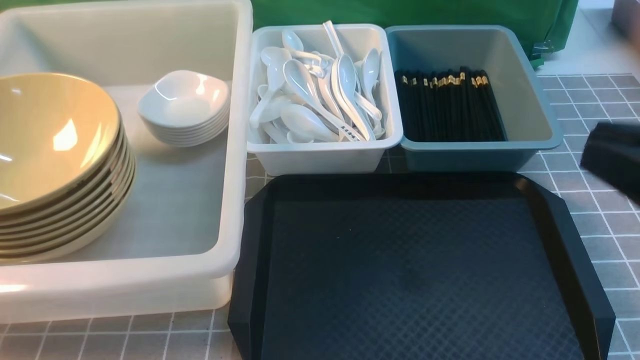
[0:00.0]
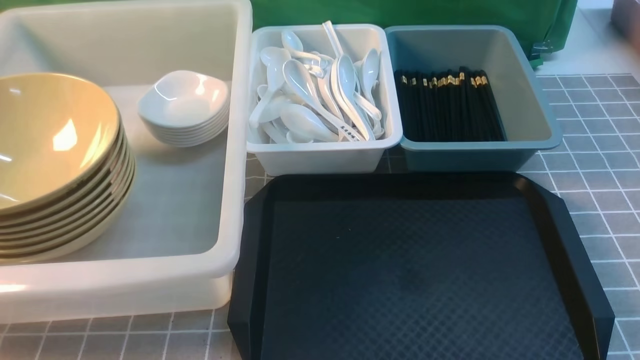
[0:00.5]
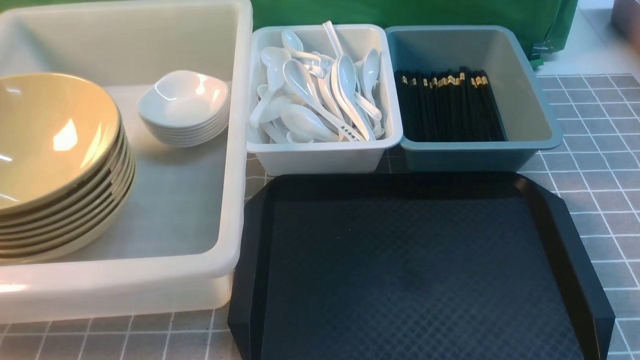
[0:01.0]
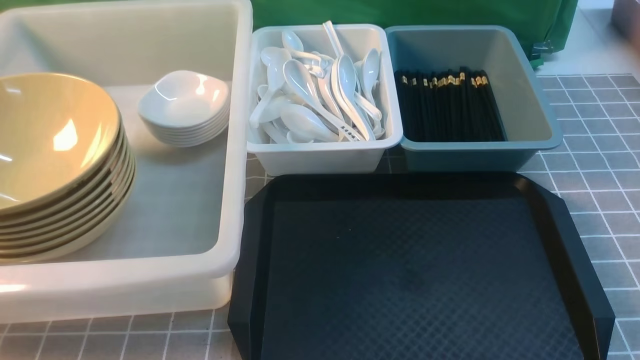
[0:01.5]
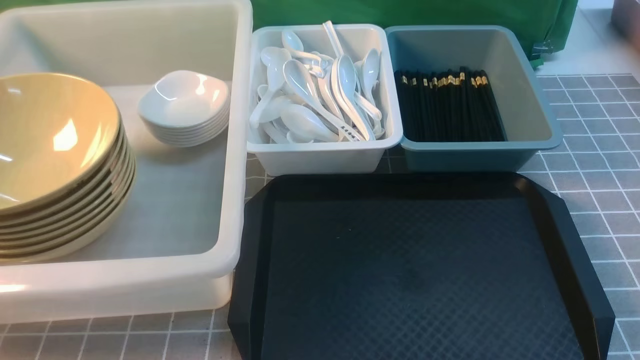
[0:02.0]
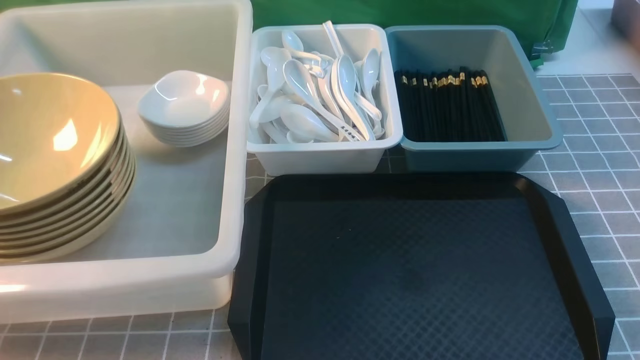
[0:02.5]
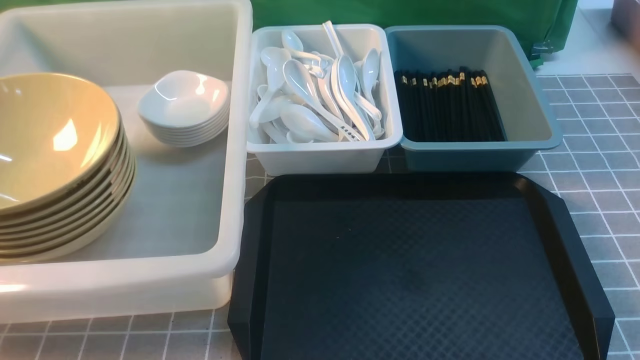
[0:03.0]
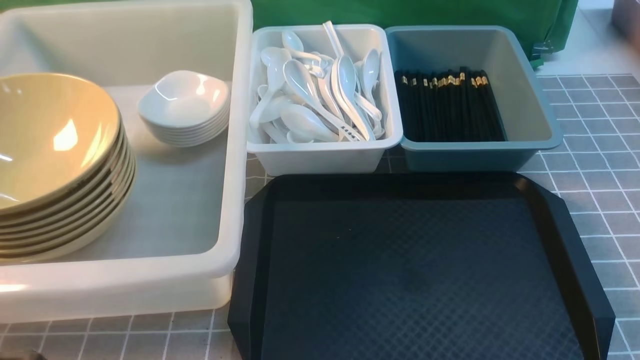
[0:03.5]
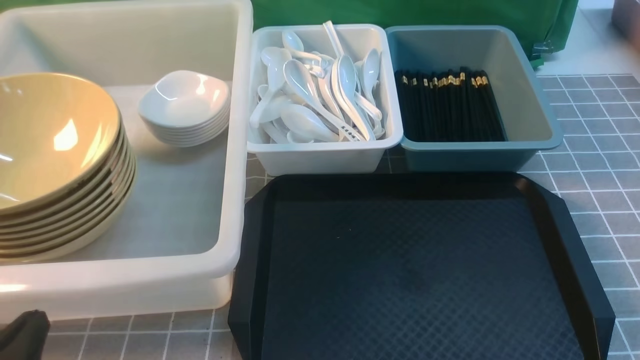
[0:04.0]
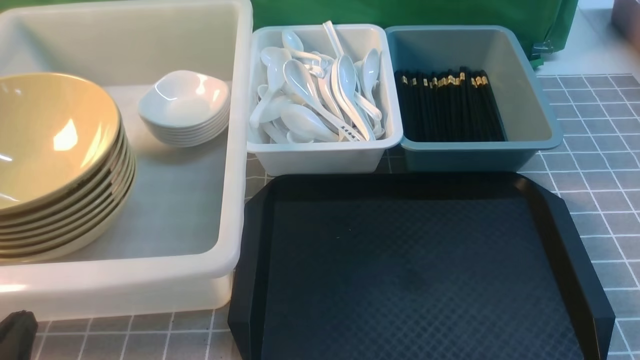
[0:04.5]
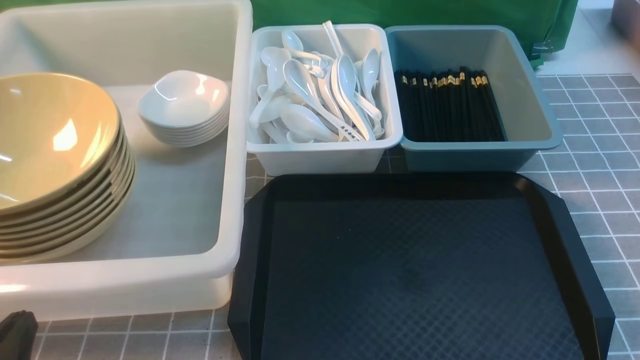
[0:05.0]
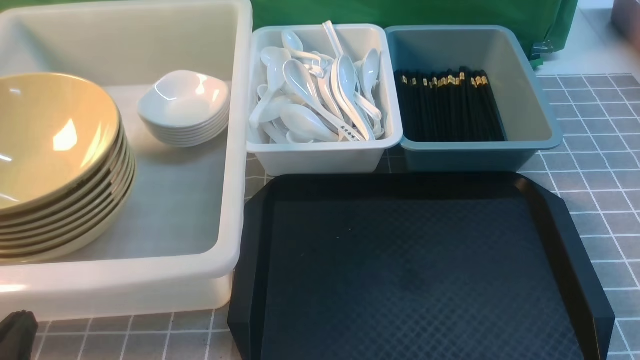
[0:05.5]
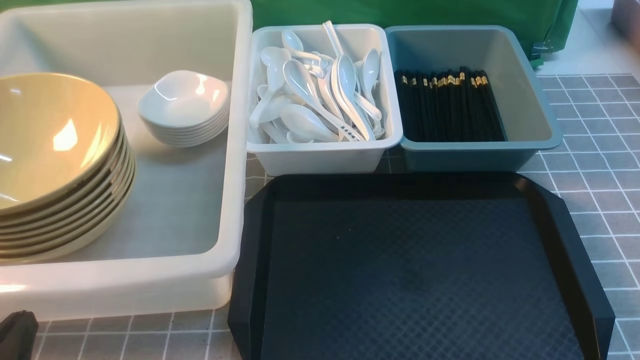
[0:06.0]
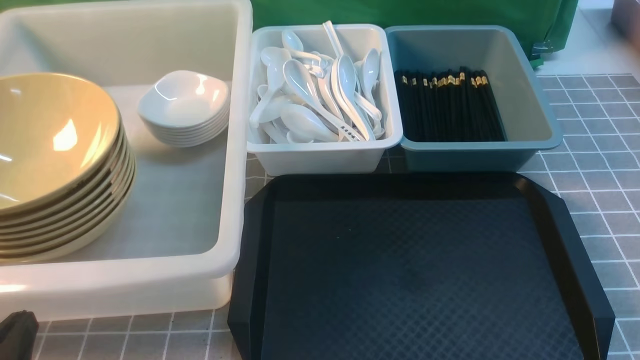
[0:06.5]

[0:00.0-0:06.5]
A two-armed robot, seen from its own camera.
Task of the whole recording: on grey table put chopsticks spoon bowls plates into blue grey white boxes.
0:00.0 to 0:02.0: The right gripper travels downward and to the right by about 25 cm.
0:02.0 to 0:04.5: The left gripper shifts approximately 10 cm downward.
0:04.5 to 0:06.5: Both grippers stay about where they are.

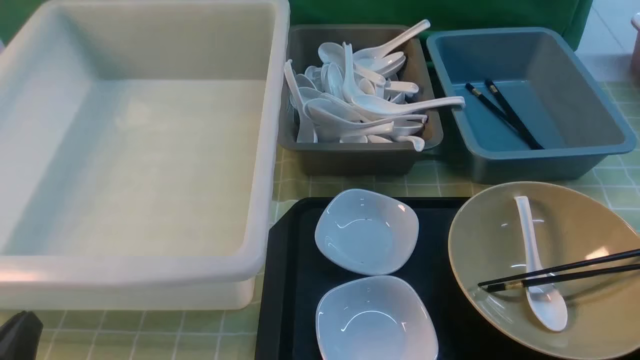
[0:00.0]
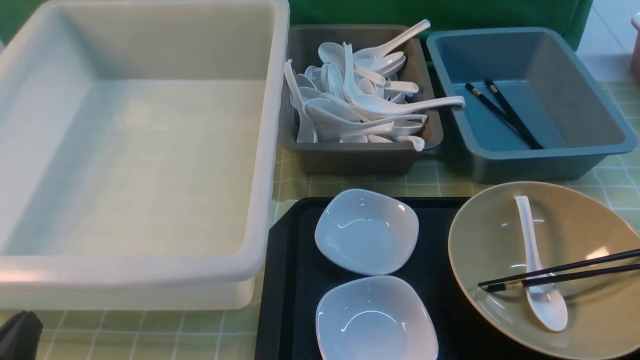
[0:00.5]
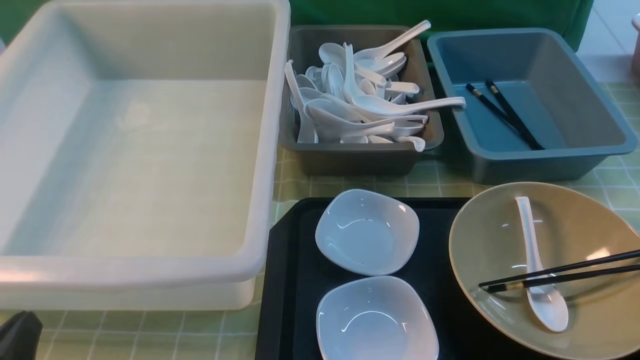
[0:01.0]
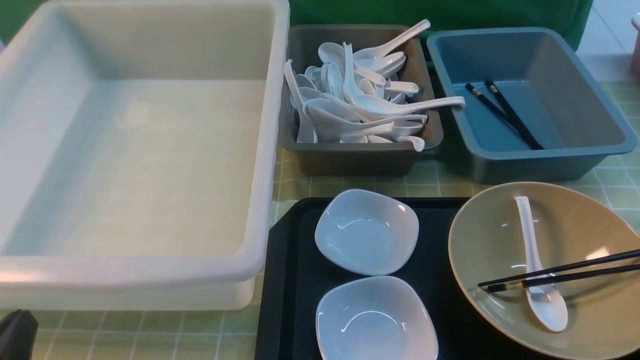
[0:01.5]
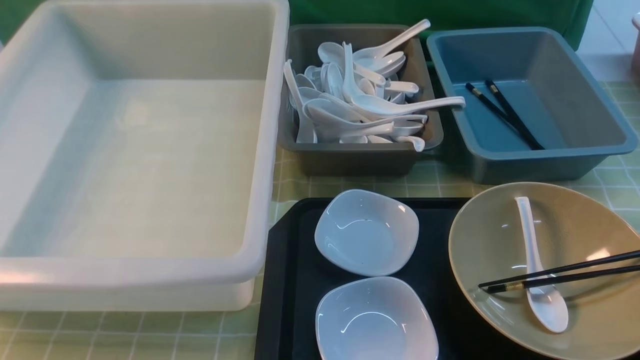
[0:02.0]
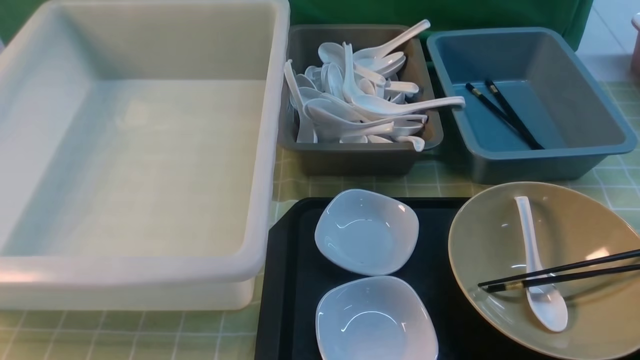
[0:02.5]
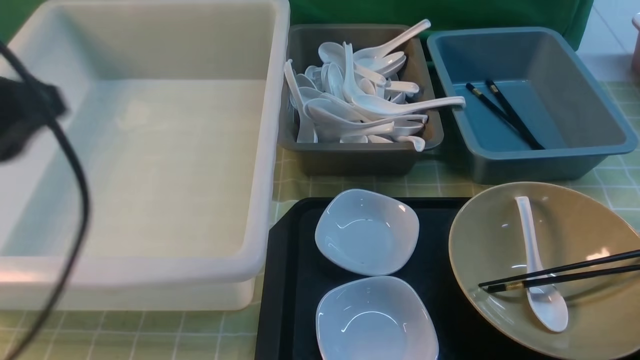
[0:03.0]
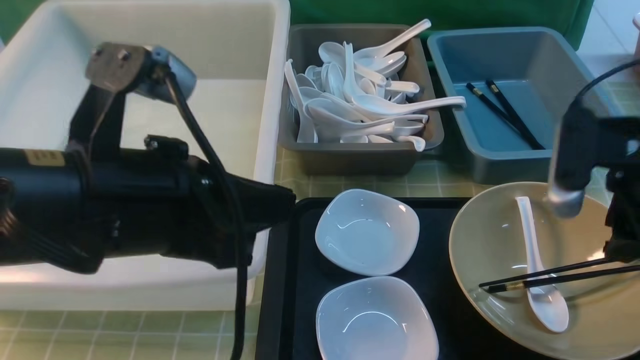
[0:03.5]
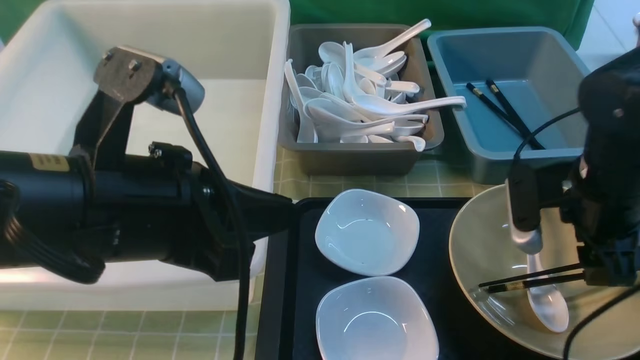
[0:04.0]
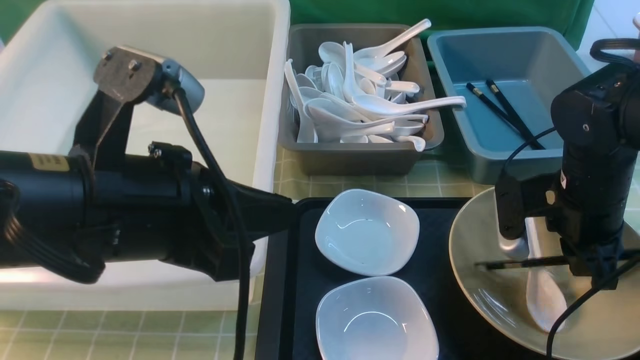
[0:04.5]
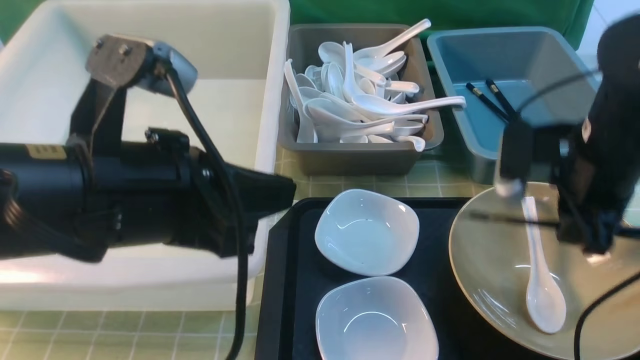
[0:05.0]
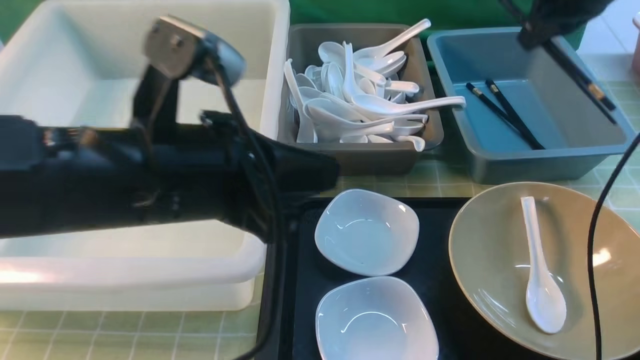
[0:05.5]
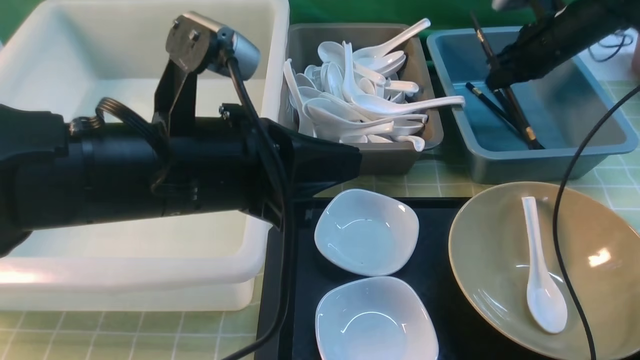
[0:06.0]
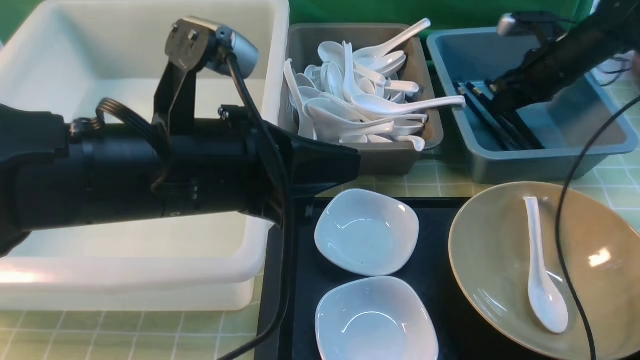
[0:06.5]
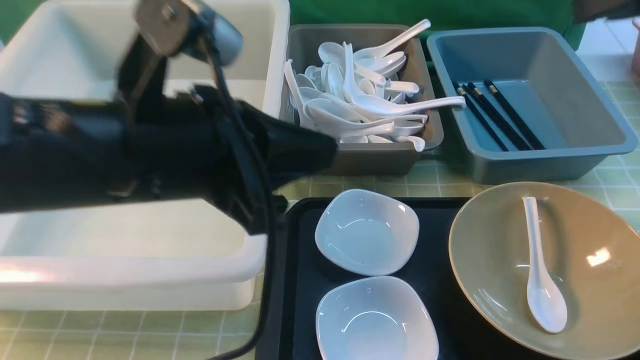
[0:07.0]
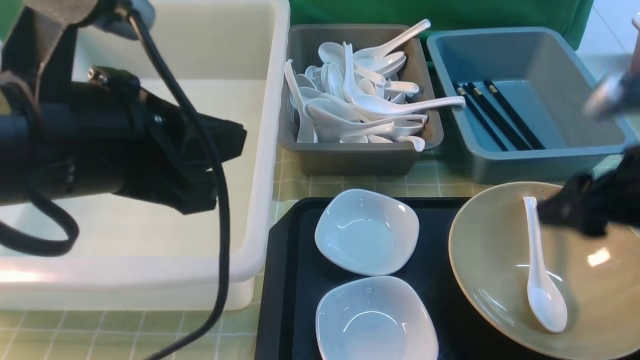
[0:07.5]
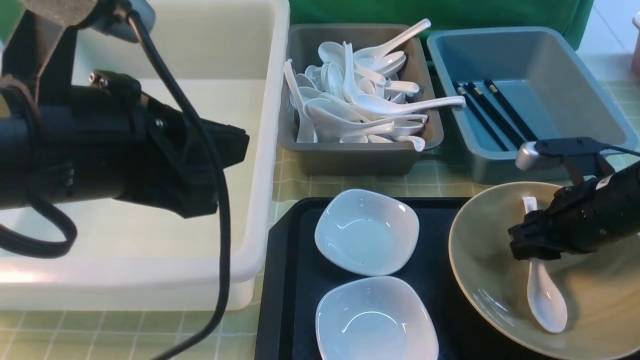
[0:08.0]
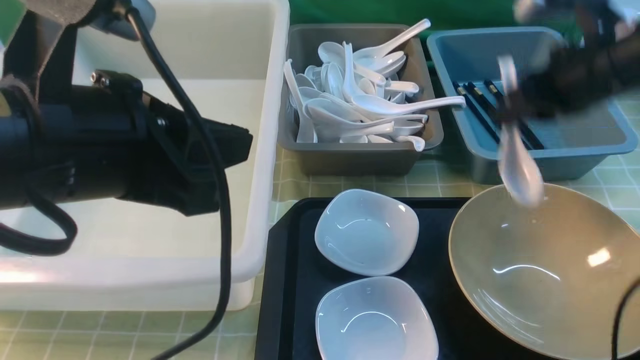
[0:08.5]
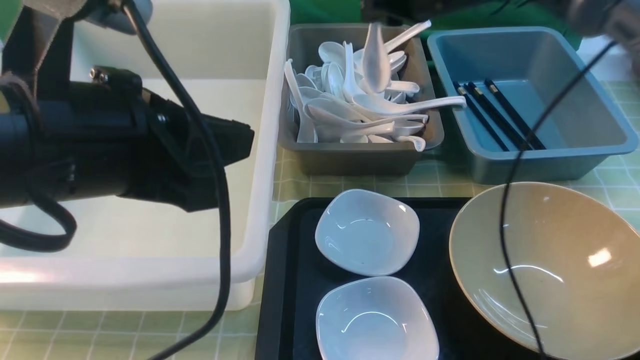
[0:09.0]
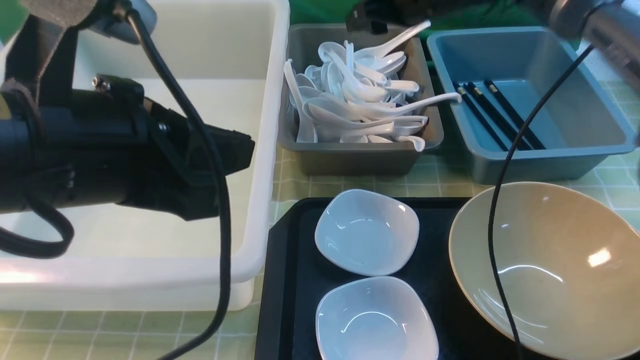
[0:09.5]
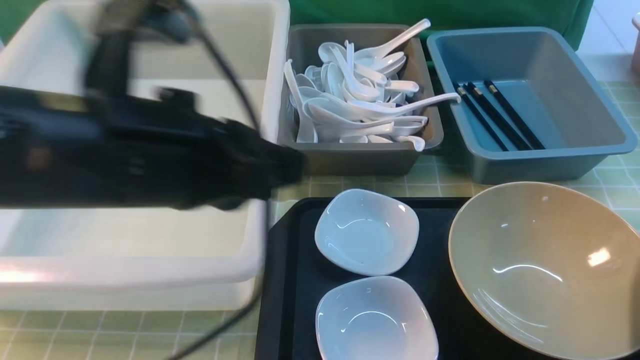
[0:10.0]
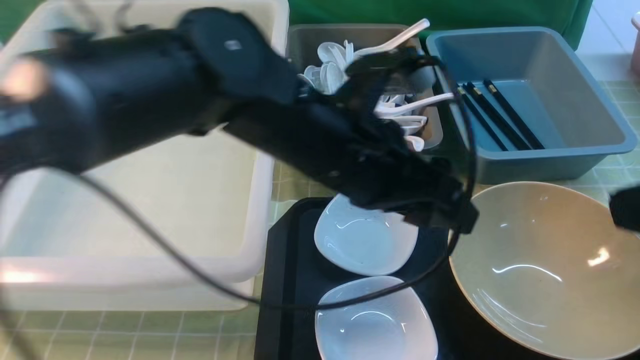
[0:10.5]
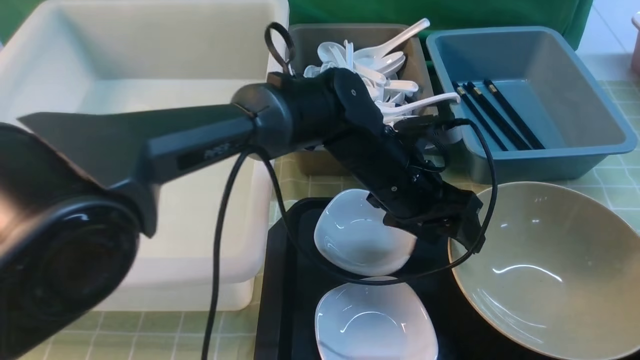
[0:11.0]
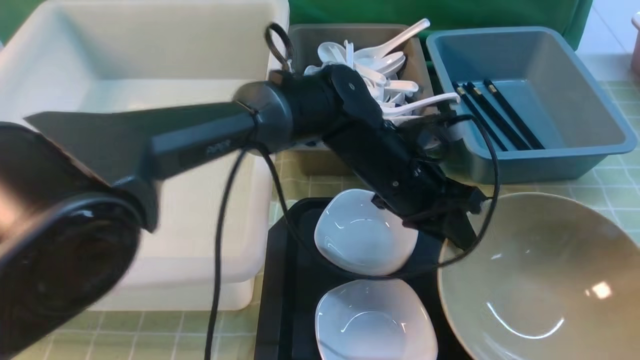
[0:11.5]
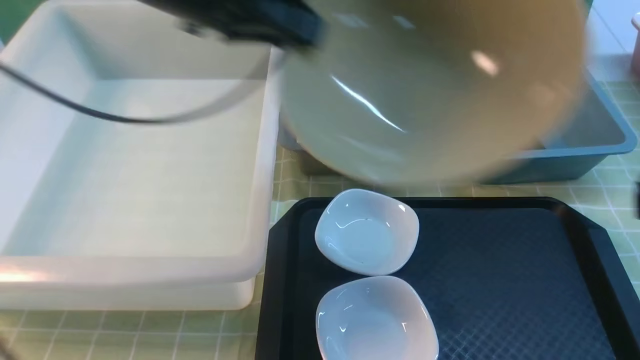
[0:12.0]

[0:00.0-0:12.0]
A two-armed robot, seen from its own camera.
Task of the whole recording: on green table put chopsticks spoon bowls plates into blue grey white boxes.
Step, 0:00.0 to 0:04.5: use the right arm to grab the chopsticks.
Step, 0:05.0 to 0:06.5: use the right arm to put the chopsticks into the small storage box on the right.
Step, 0:07.0 to 0:08.5: use the right arm to grab the soup spoon in the middle.
Step, 0:09.0 to 0:09.5: use the right arm to put the soup spoon into the small storage box in the middle.
Step, 0:10.0 to 0:11.5: use the left arm to grab the yellow noodle bowl on the left.
0:00.0 to 0:02.0: The two grippers go some 5 cm upward.
0:02.0 to 0:04.0: The left gripper shifts approximately 20 cm to the right, forward and upward; the right gripper is displaced forward by approximately 25 cm, and opens.
0:04.0 to 0:06.0: The left gripper shifts by roughly 5 cm; the right gripper is displaced forward by approximately 25 cm, and closes.
0:06.0 to 0:08.0: The right gripper heads backward, covering roughly 25 cm, and opens its fingers. The left gripper is displaced upward by roughly 5 cm.
0:08.0 to 0:10.0: The right gripper shifts roughly 30 cm upward, and closes.
0:10.0 to 0:12.0: The left gripper heads forward, covering roughly 15 cm, reaches approximately 15 cm to the right, then returns, and opens, then closes once more, while the right gripper goes about 20 cm backward and downward.

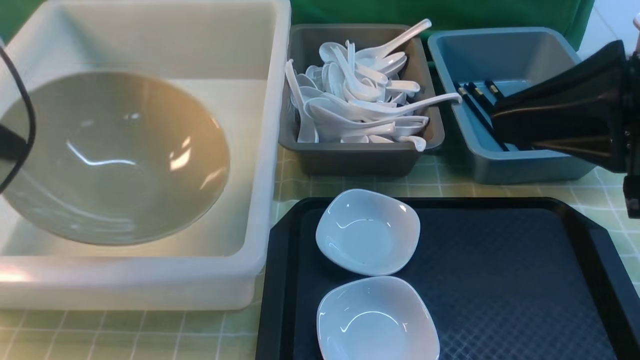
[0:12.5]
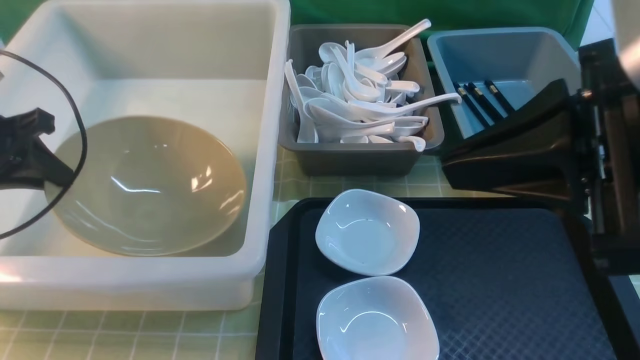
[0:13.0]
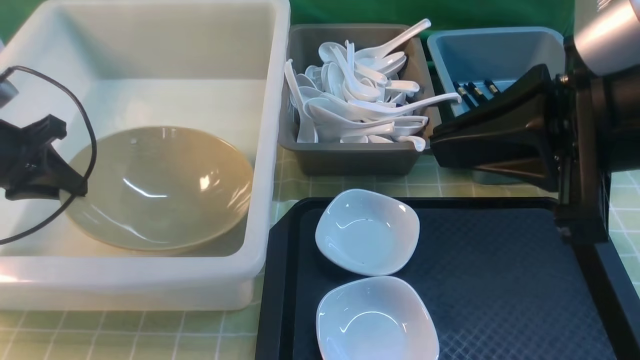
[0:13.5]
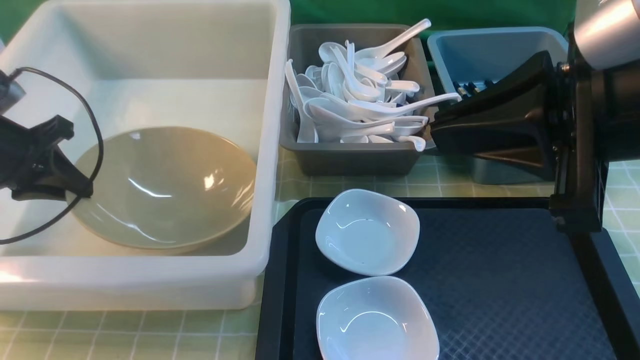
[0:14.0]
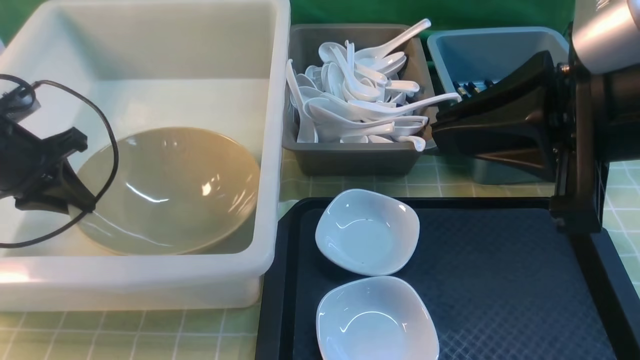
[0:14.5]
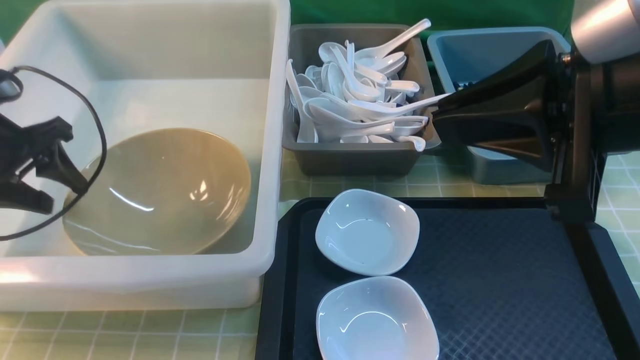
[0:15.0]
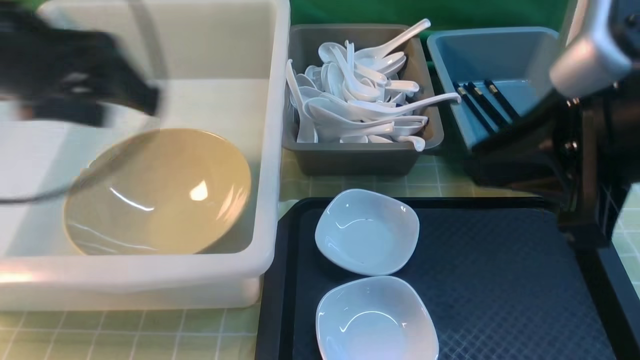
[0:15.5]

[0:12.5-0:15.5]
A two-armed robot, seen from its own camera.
Task of the whole recording: on green table put chopsticks spoon bowls plates into blue grey white boxes.
Step, 0:12.5 to 0:15.0: use the left arm to put the noodle bowl into the large storage box on the left.
0:12.5 to 0:14.0: The left gripper shifts roughly 10 cm downward and forward.
0:14.0 to 0:15.5: The left gripper is displaced to the right and upward by approximately 20 cm, and opens up.
